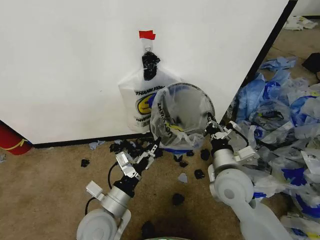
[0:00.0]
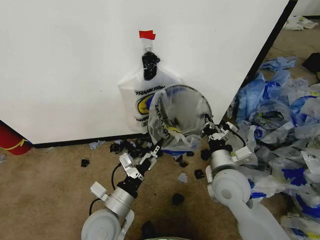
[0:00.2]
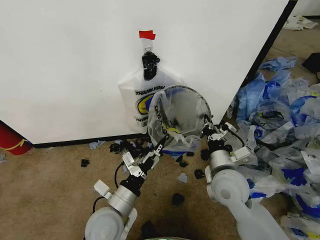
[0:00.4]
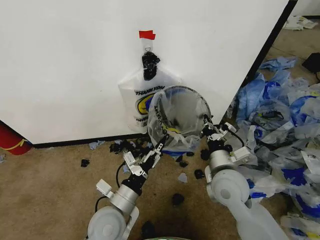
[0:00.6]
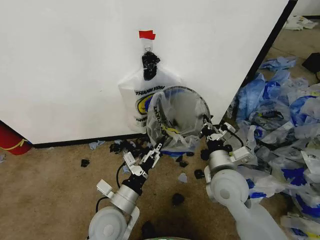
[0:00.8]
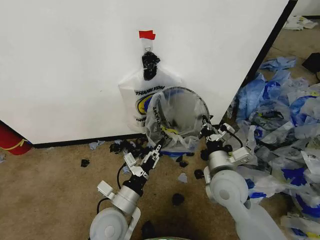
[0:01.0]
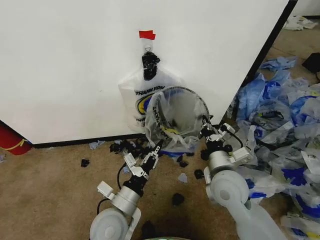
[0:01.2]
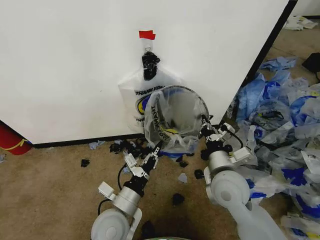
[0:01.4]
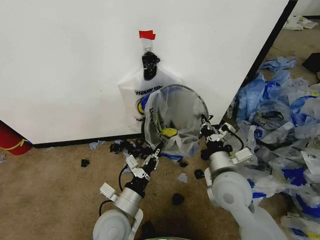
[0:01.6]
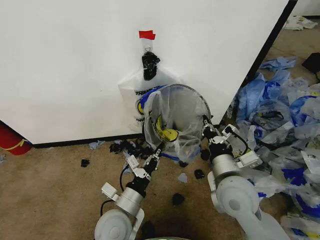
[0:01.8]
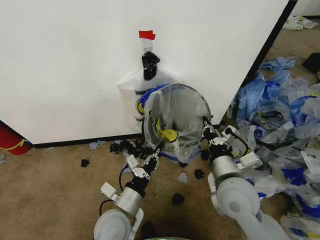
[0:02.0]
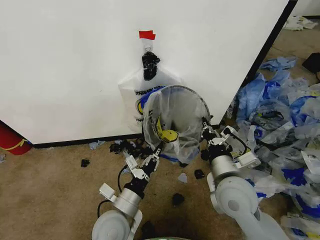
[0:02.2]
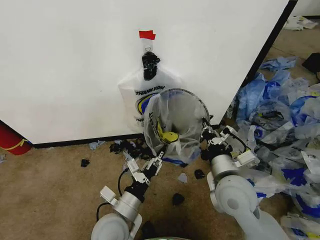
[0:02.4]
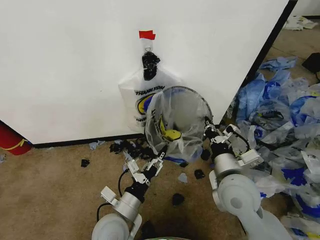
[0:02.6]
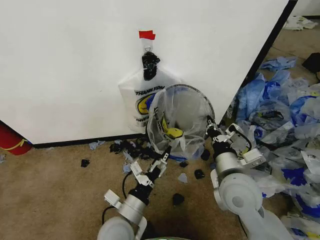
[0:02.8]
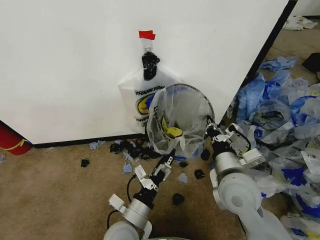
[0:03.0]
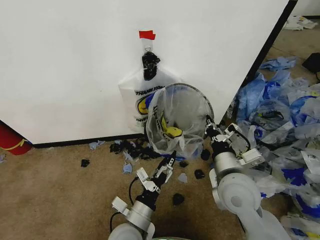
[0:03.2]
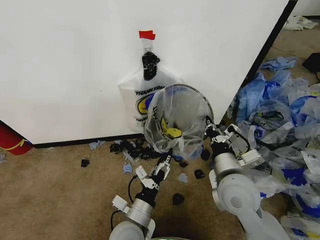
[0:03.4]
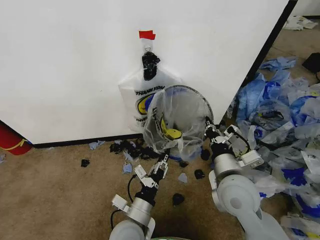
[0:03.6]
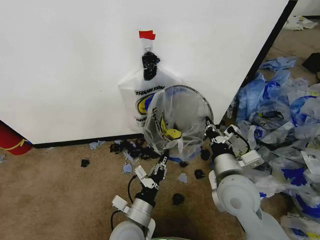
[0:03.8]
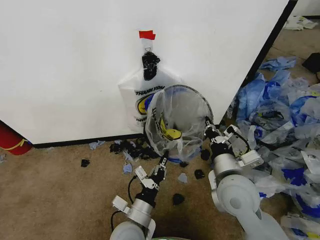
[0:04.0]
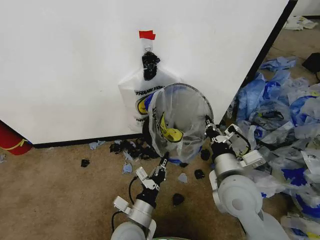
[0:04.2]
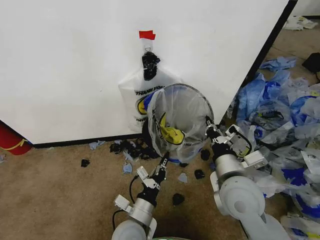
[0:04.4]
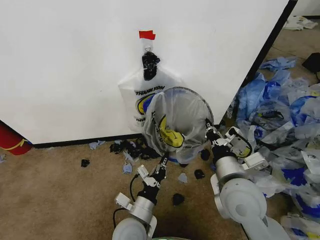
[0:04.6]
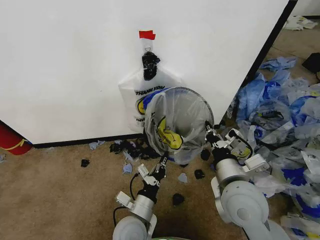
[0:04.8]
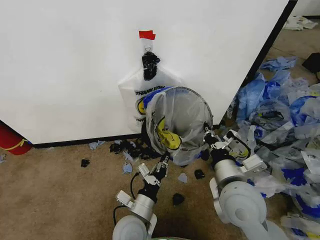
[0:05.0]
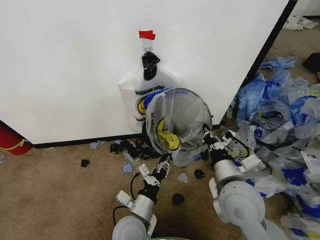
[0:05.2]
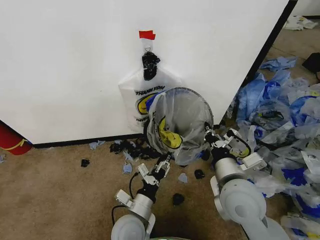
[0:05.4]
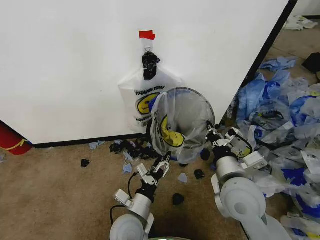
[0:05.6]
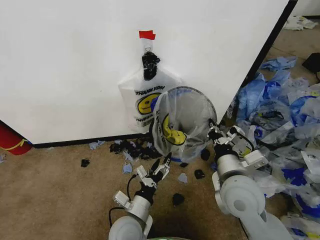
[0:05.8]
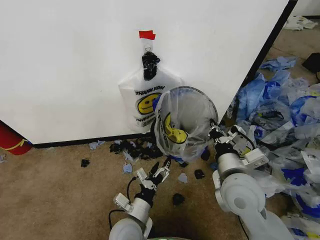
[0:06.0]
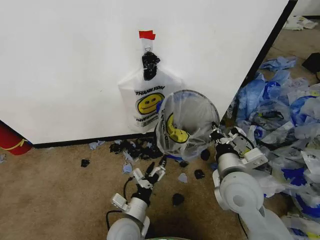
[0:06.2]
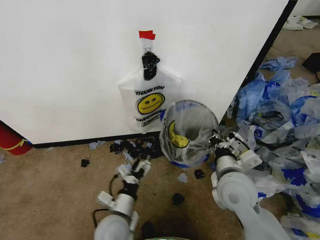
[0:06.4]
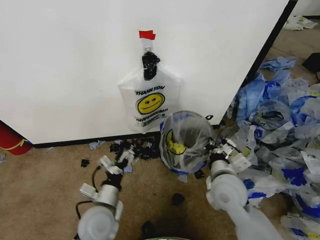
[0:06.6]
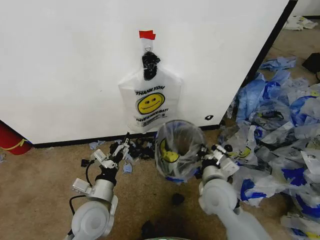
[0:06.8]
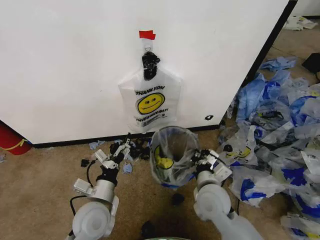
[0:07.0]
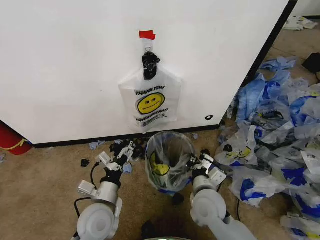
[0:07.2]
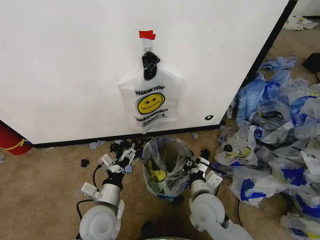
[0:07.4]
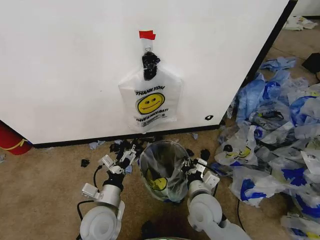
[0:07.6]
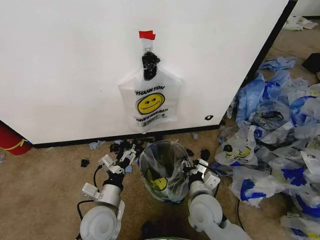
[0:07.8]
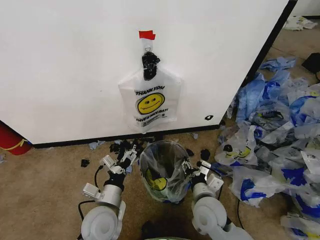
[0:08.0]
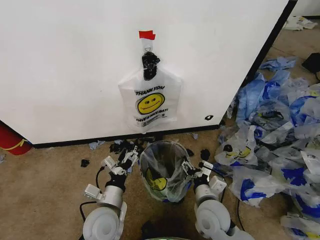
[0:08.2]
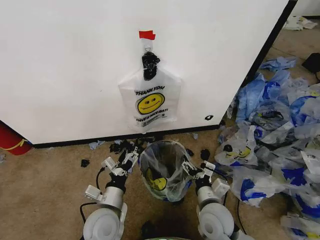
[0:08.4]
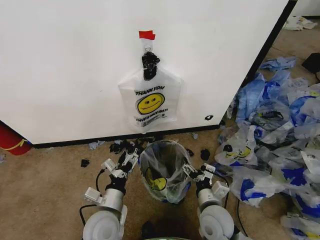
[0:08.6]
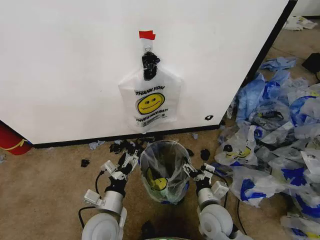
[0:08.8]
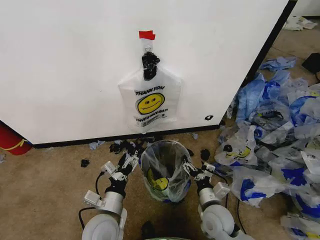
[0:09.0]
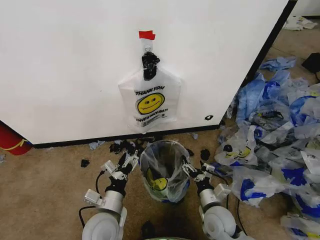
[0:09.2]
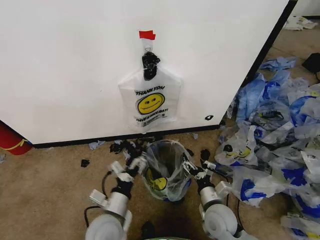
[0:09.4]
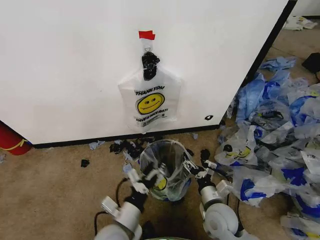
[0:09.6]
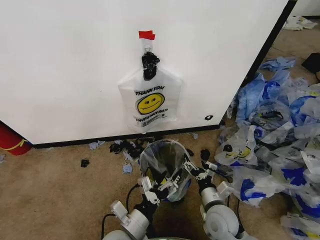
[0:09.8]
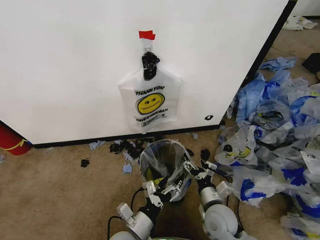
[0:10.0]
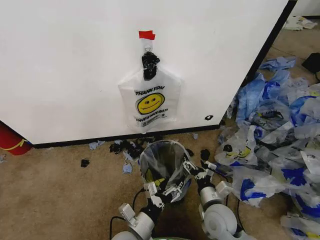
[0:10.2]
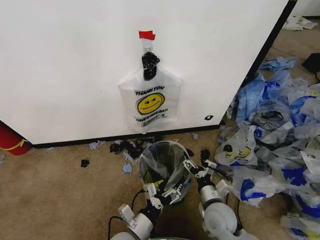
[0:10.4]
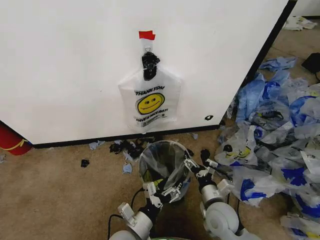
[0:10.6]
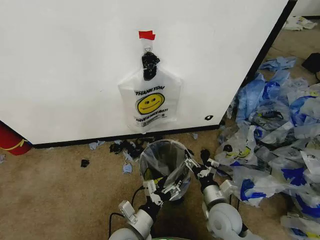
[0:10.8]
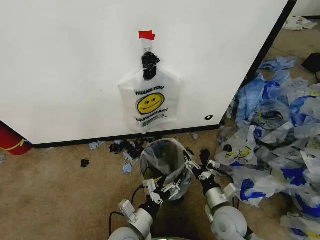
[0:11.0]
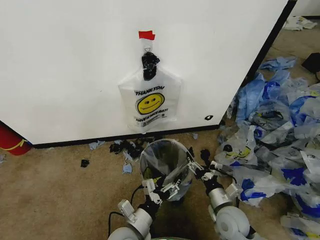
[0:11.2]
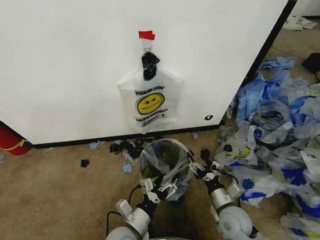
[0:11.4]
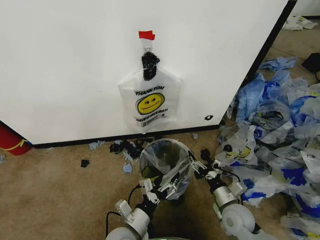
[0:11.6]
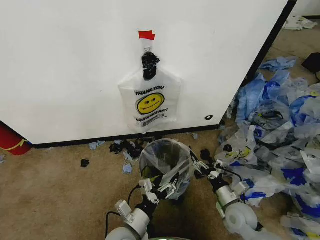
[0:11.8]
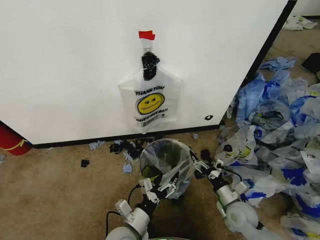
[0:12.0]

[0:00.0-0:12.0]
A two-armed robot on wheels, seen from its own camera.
Task of the whole recording: Pick up the garbage bag from the wall and place it over the trash bin.
0:00.0 to 0:01.6: The left gripper closes.
0:01.6 to 0:03.0: The left gripper opens up.
0:03.0 to 0:04.4: The left gripper closes its fingers.
0:04.4 to 0:06.0: The left gripper opens its fingers.
0:06.0 to 0:07.6: The right gripper travels downward and to the left by approximately 15 cm, while the left gripper goes roughly 5 cm to the left.
0:07.6 to 0:09.0: The right gripper is displaced downward and to the right by approximately 10 cm, and opens.
0:09.0 to 0:10.4: The left gripper heads to the right, covering approximately 5 cm.
0:10.4 to 0:12.0: The right gripper moves to the right, some 10 cm.

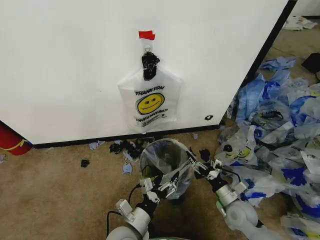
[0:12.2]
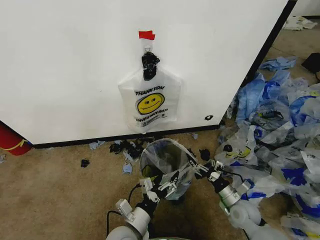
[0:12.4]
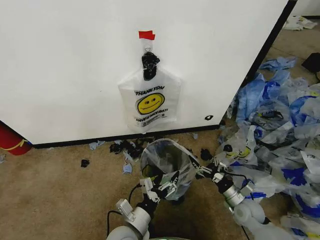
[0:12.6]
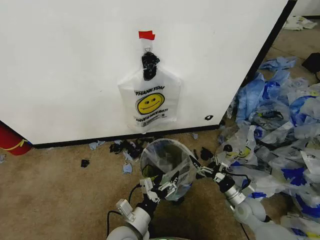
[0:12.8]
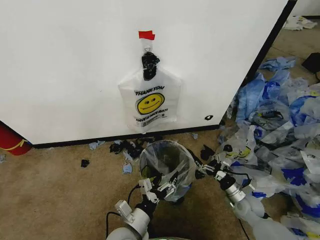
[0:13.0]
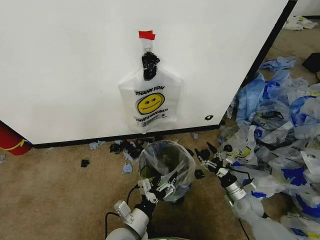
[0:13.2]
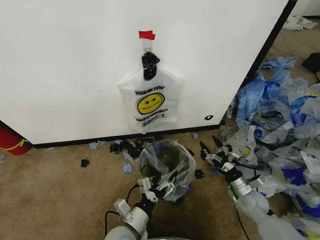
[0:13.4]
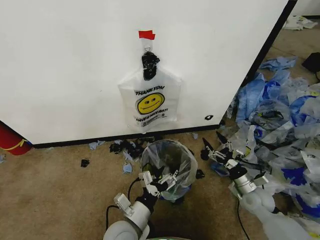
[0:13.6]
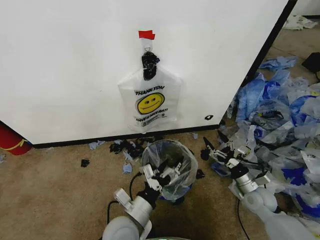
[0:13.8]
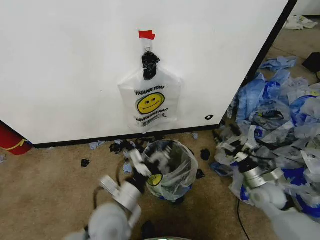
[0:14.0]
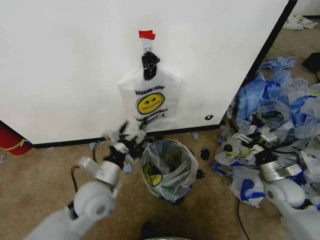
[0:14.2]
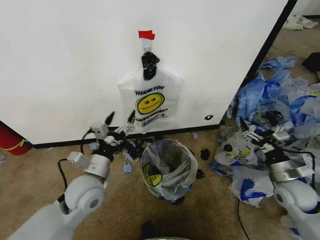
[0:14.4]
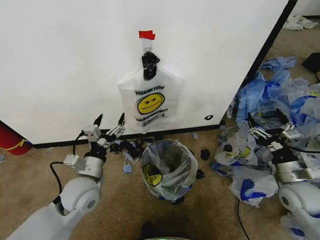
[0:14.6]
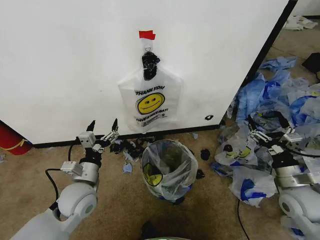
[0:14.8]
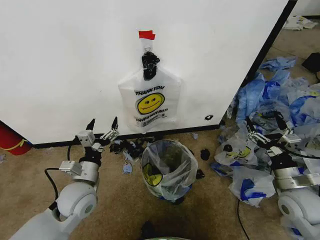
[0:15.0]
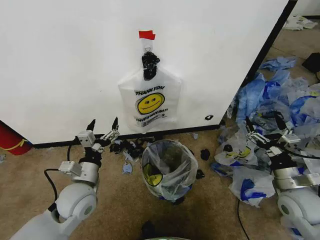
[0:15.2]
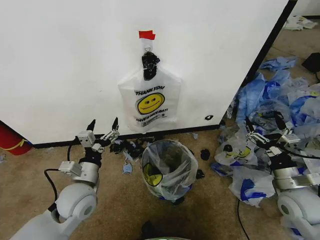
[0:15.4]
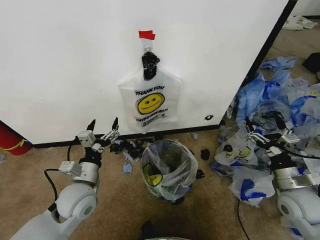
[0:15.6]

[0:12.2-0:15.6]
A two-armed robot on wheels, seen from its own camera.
Task of the whole recording: Pick up the garbage bag from the wall and place it over the trash bin.
0:12.2 to 0:13.8: The left gripper moves approximately 5 cm; the right gripper goes approximately 5 cm to the right.
0:13.8 to 0:15.6: The left gripper shifts some 15 cm to the left, forward and upward. Meanwhile the right gripper shifts roughly 10 cm upward and backward.

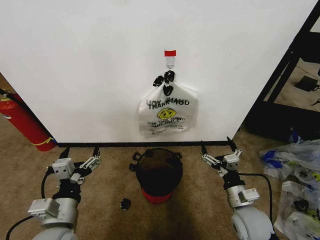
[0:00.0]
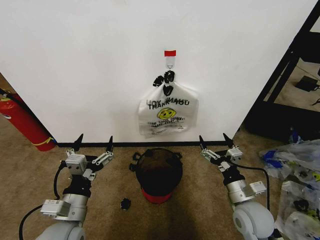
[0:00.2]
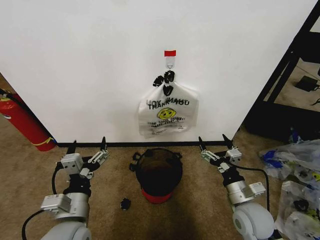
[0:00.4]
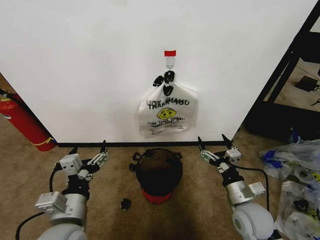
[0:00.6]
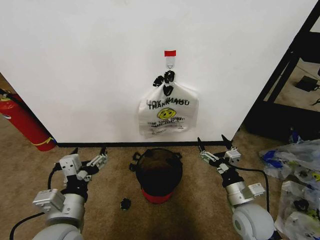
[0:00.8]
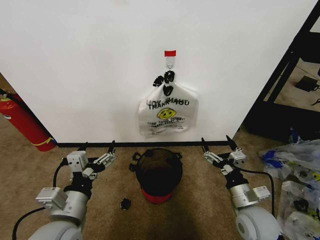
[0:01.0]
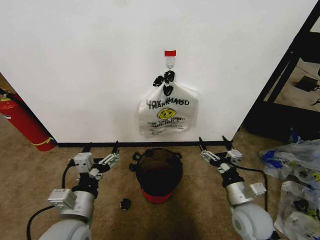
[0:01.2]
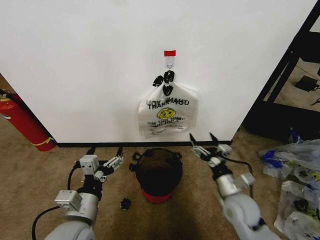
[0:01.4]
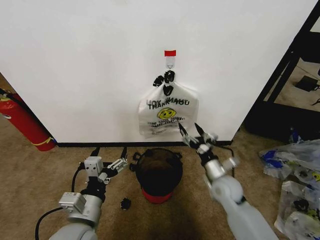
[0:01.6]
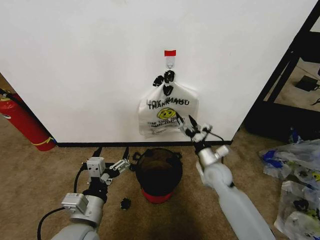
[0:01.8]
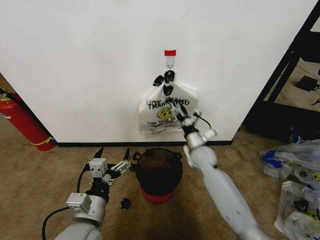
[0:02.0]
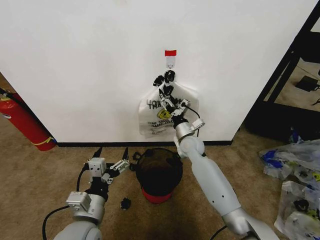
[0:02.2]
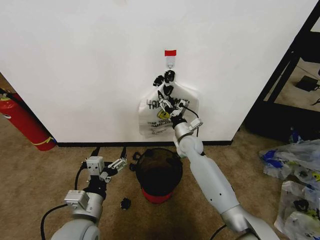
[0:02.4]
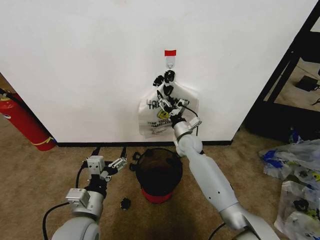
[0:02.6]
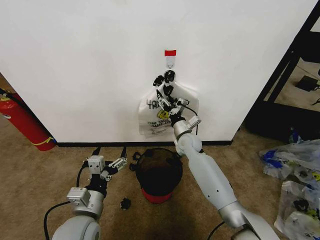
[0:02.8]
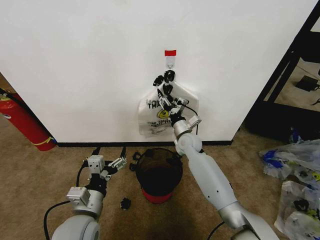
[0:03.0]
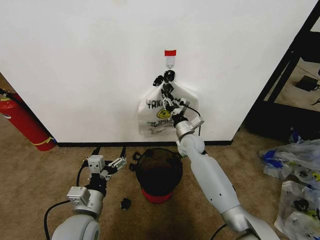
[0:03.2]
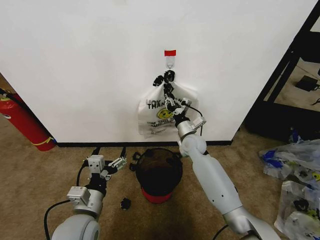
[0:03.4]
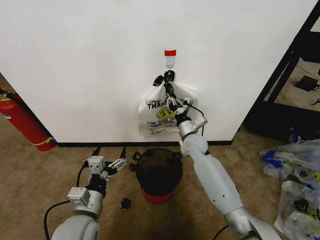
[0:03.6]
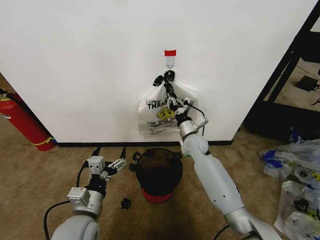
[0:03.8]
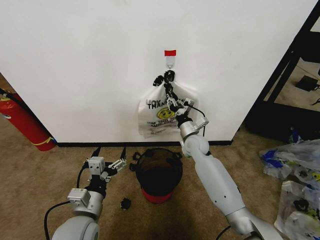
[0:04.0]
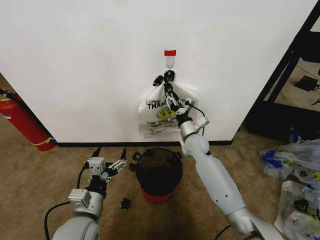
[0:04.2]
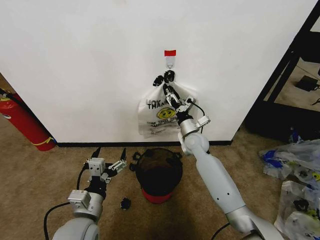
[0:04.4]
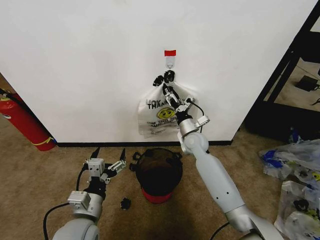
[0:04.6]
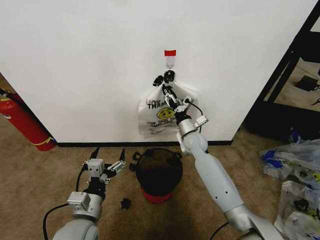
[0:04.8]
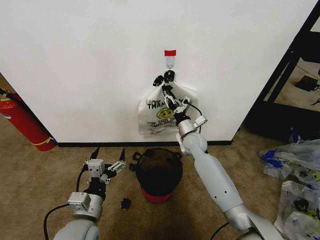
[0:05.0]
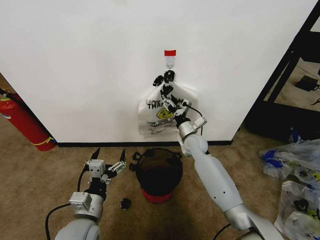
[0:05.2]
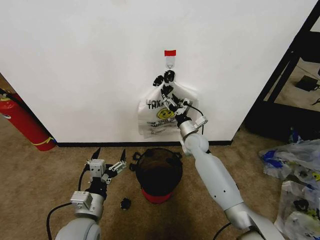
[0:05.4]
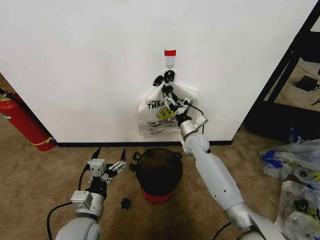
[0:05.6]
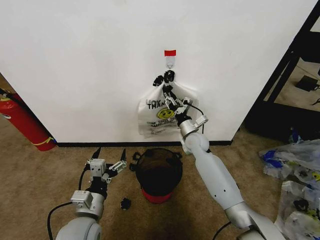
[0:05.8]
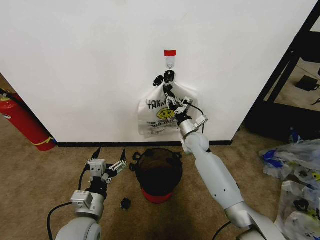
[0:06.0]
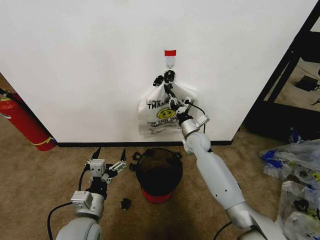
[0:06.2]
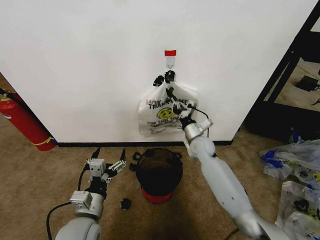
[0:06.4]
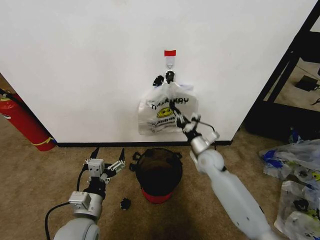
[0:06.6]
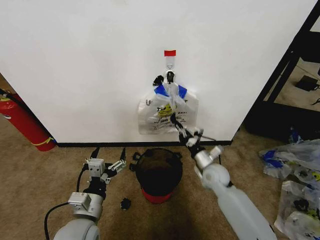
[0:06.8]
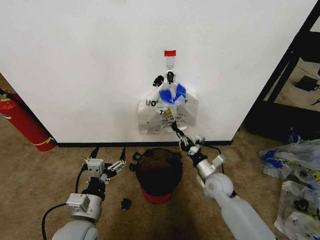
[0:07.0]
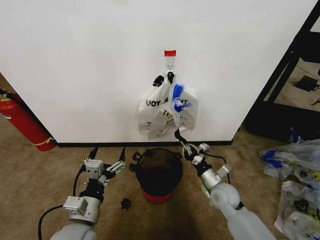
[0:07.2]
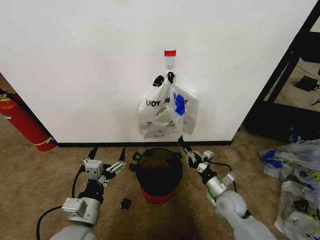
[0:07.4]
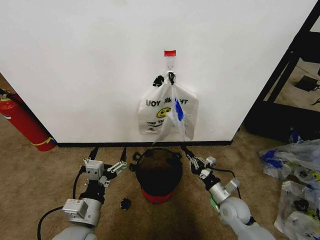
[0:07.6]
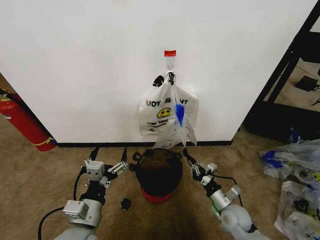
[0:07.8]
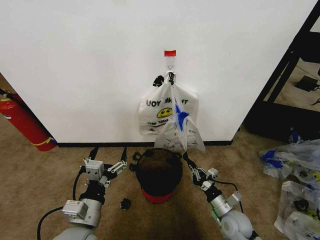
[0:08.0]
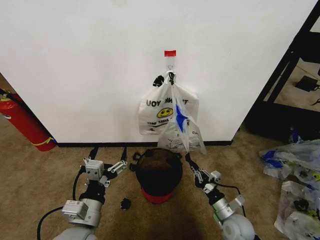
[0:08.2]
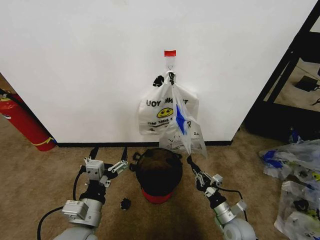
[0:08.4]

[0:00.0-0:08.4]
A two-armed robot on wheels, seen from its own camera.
Task of the whole recording: Pick up the garbage bag from the wall and place it over the trash bin.
0:01.4 to 0:02.8: The right gripper goes about 25 cm forward and to the left.
0:02.8 to 0:05.6: The grippers make only small movements.
0:05.6 to 0:07.0: The right gripper travels backward, downward and to the right by some 20 cm, and closes.
0:07.0 to 0:08.4: The right gripper is displaced backward, downward and to the right by some 15 cm.
